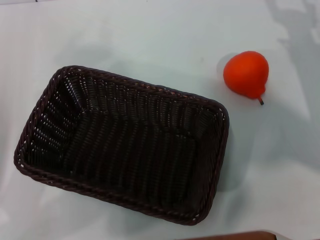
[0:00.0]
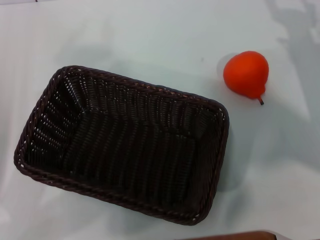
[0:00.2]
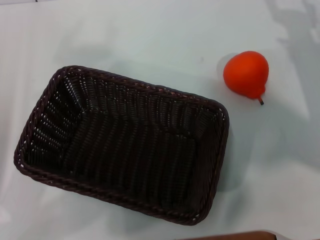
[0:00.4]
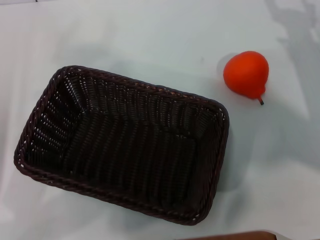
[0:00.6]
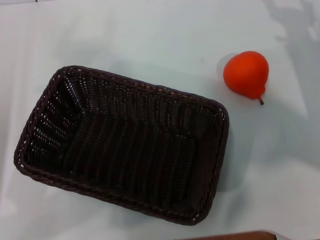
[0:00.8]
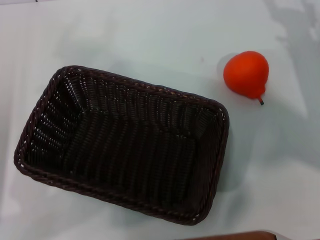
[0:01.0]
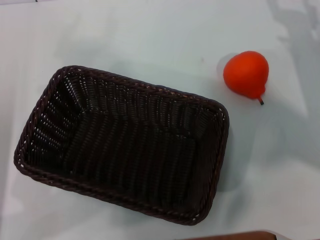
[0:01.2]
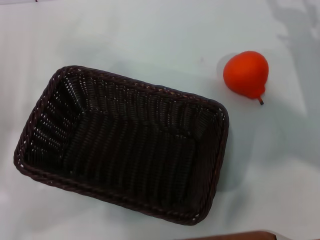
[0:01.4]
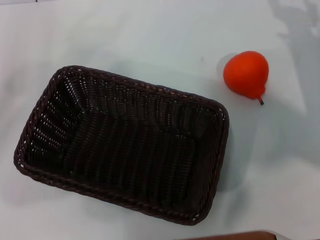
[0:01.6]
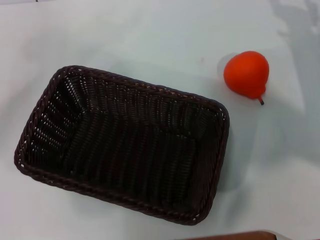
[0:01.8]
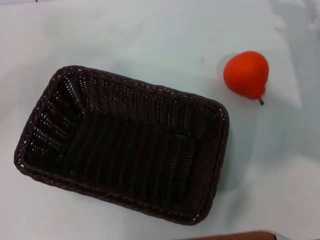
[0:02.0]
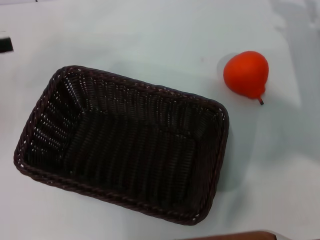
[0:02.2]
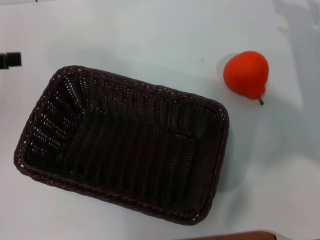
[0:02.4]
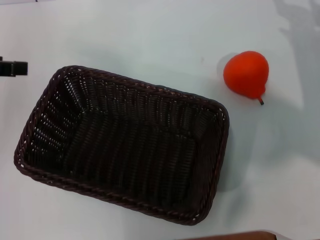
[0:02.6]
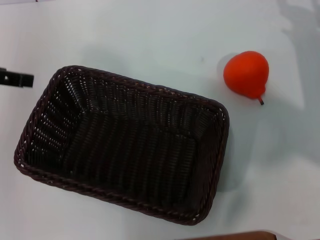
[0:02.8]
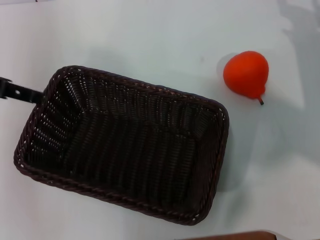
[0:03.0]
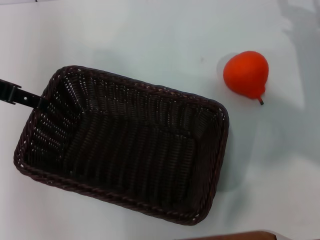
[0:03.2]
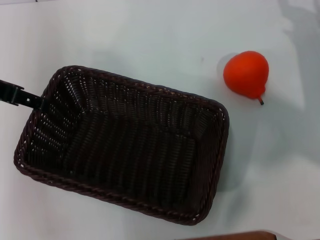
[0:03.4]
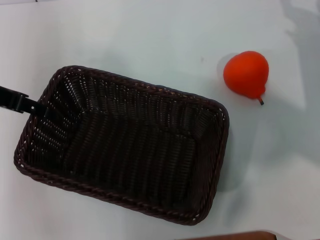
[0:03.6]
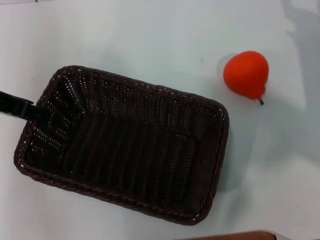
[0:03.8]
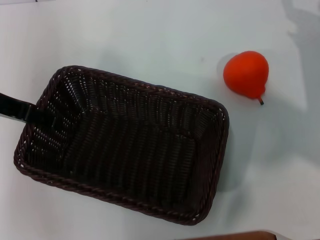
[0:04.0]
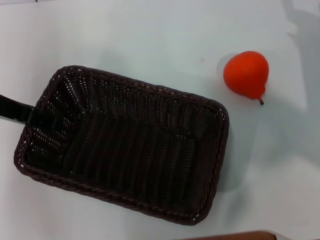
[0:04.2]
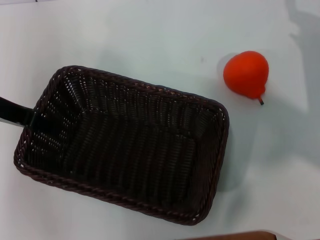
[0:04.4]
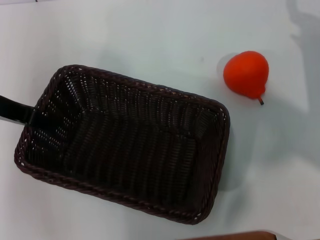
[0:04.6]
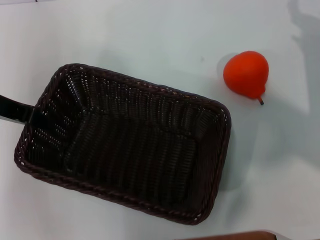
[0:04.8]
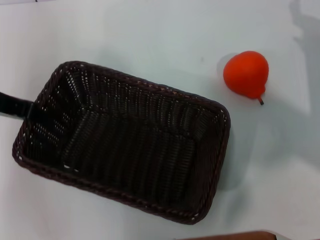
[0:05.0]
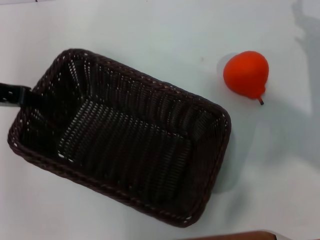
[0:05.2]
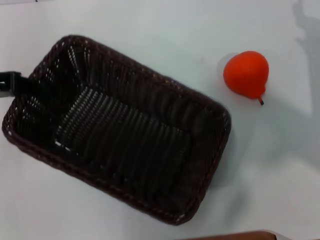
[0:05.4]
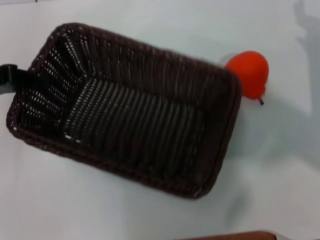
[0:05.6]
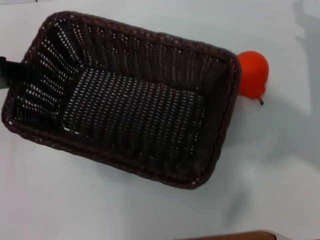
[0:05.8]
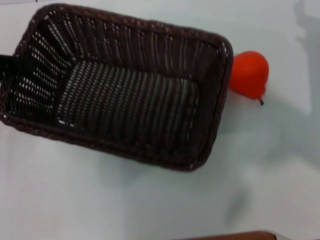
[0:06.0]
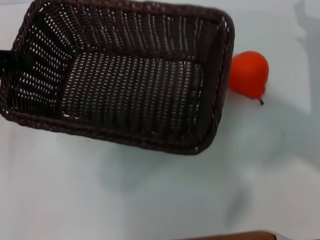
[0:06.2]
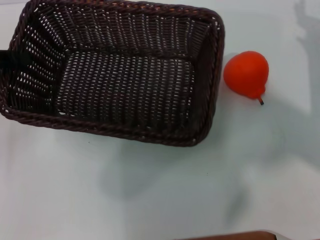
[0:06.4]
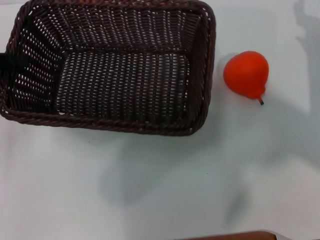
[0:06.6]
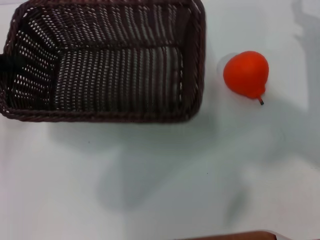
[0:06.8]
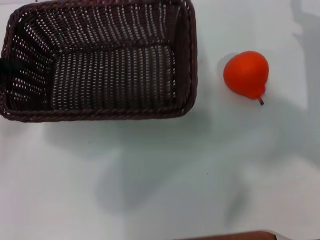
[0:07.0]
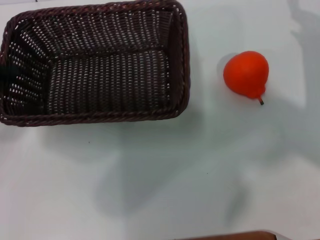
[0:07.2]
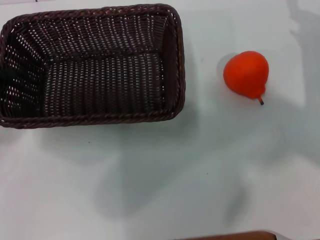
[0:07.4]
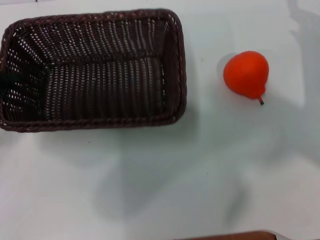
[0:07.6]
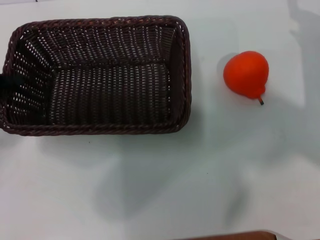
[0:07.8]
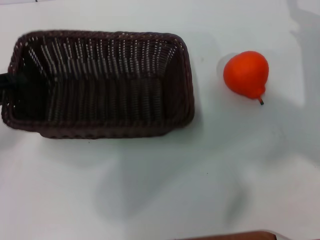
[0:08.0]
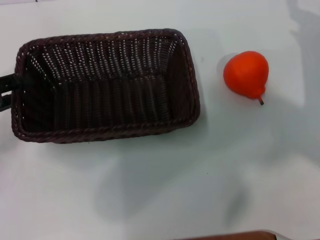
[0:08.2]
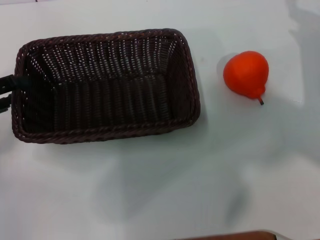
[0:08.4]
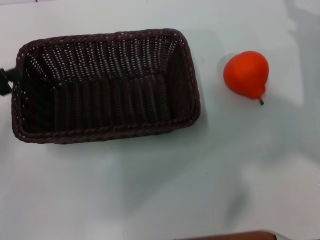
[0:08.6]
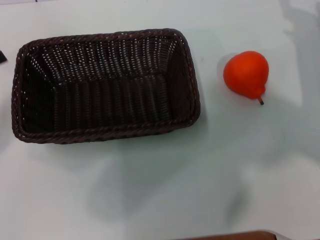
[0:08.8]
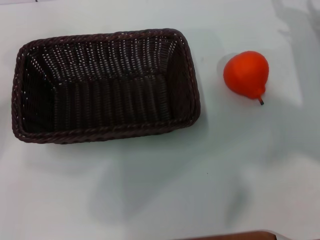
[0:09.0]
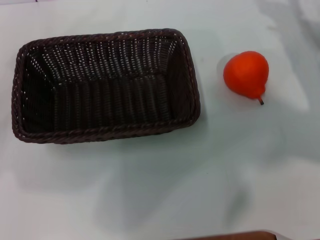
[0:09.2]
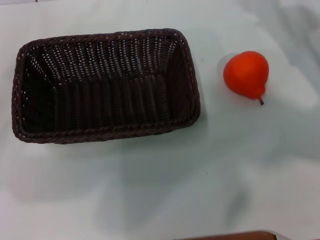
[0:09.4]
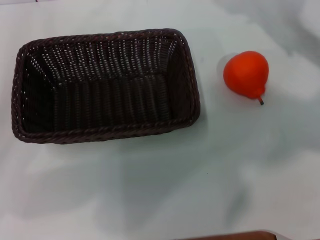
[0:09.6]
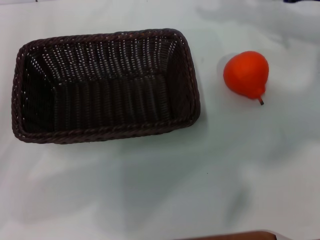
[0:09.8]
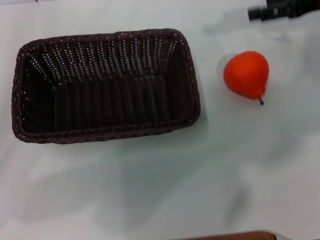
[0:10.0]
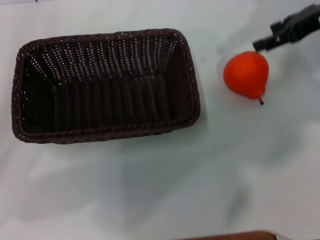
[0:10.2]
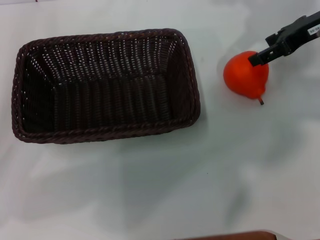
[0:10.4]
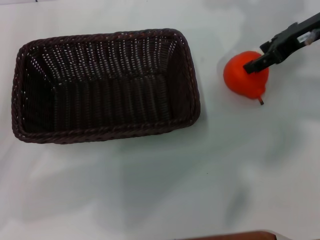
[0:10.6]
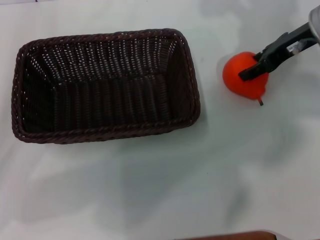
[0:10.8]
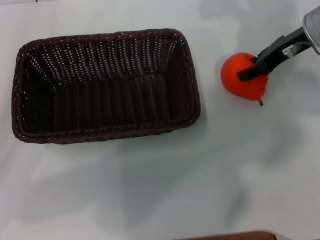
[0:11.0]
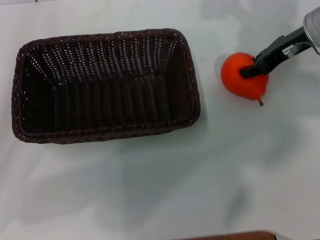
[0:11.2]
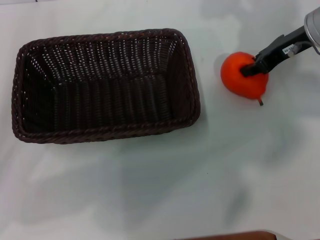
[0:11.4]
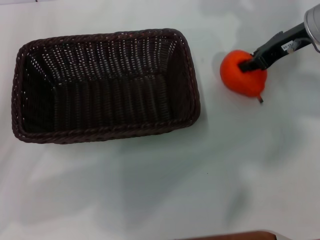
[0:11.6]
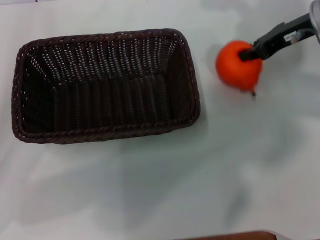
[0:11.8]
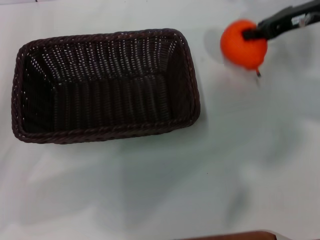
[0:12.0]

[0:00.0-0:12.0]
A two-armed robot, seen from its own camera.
Task of the whole recording: the left gripper pick up the black basket and place it horizontally in the middle of the table, the right gripper pick up the orange and place it into the black basket.
Step, 0:00.0 to 0:05.2: Pick up the dark basket with the left gripper.
Step, 0:05.4 to 0:08.6: Place the dark basket in the center of view with the left gripper.
Step, 0:08.8 to 0:11.8: Pick up the orange with the right gripper.
0:00.0 to 0:01.6: The left gripper shifts by approximately 5 cm, and opens.
0:01.6 to 0:03.0: The left gripper travels upward, to the right and forward by approximately 15 cm.
0:03.0 to 0:04.4: The left gripper ends up approximately 5 cm from where it was.
0:04.4 to 0:06.0: The left gripper moves to the left, roughly 5 cm, and closes its fingers.
0:06.0 to 0:07.6: The left gripper goes about 5 cm downward.
0:07.6 to 0:09.0: The left gripper opens its fingers.
0:09.0 to 0:10.4: The left gripper shifts by about 5 cm. The right gripper goes about 15 cm upward.
0:10.4 to 0:12.0: The right gripper closes its fingers.

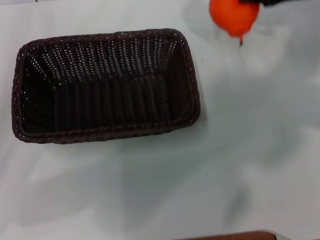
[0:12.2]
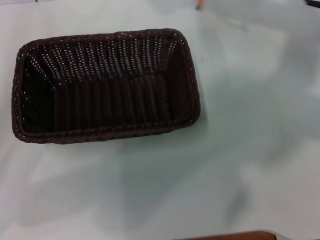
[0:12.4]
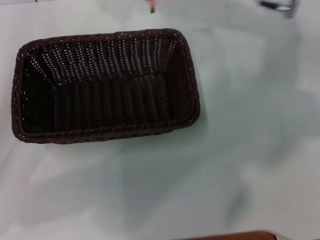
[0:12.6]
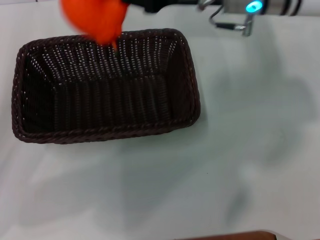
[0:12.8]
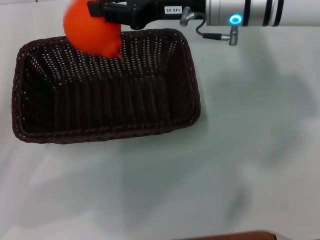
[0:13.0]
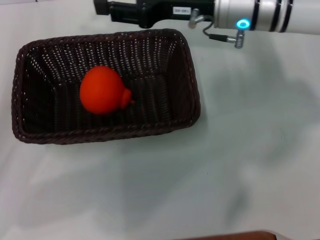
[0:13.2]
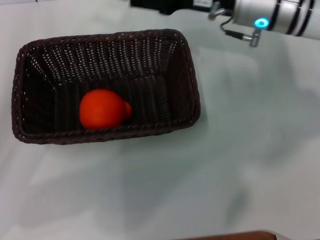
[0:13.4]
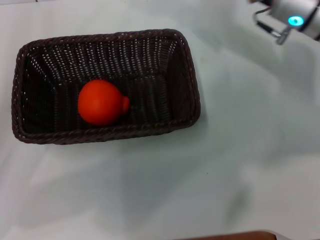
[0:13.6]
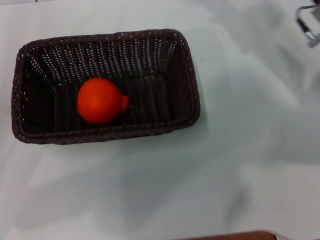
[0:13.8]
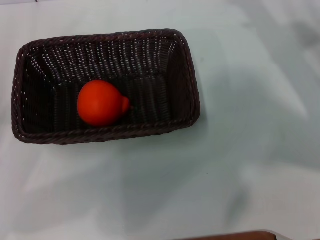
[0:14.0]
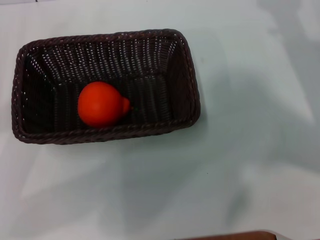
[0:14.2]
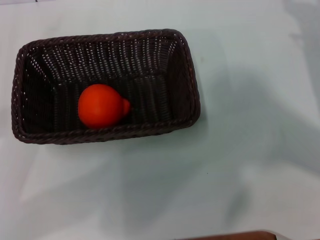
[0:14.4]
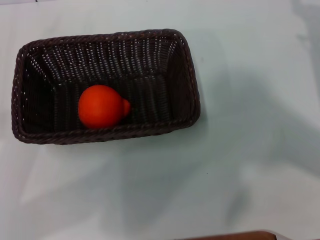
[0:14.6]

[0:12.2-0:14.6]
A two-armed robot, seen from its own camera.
Task of the whole recording: the left gripper pick up the black basket and place it horizontally in the middle of the table, the right gripper pick up the orange and place it into the black basket.
Step, 0:12.2 to 0:13.2: Place the orange into the dark basket with the right gripper.
0:12.2 to 0:13.4: The right gripper heads to the left, covering some 15 cm, and opens its fingers.
0:13.4 to 0:14.6: The right gripper shifts about 20 cm to the right, backward and downward.
